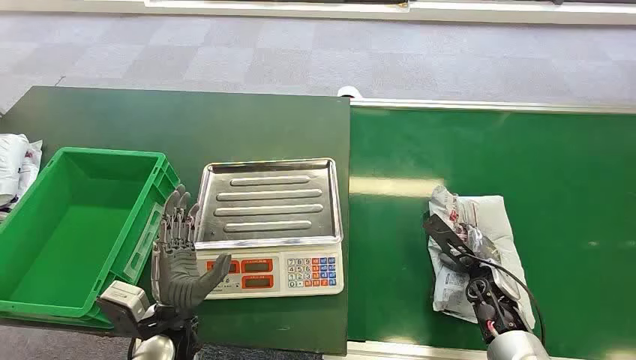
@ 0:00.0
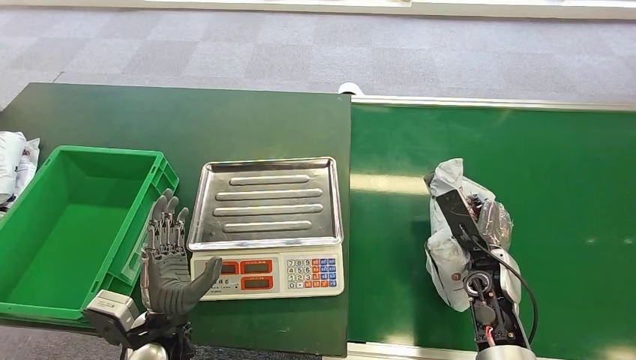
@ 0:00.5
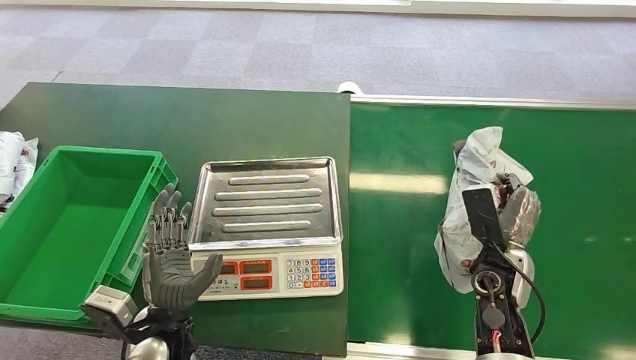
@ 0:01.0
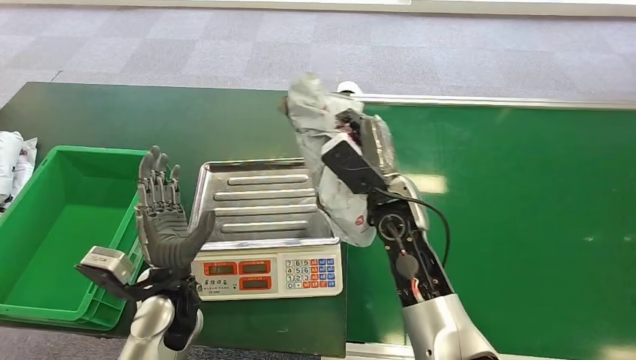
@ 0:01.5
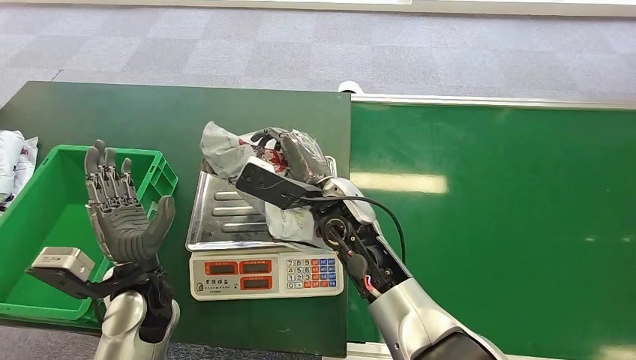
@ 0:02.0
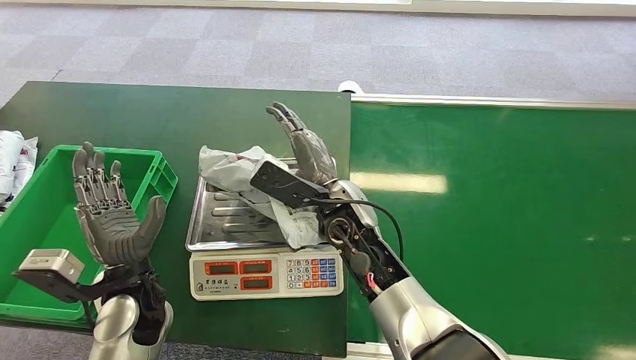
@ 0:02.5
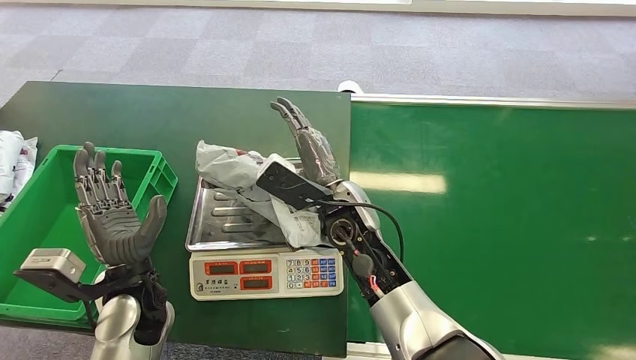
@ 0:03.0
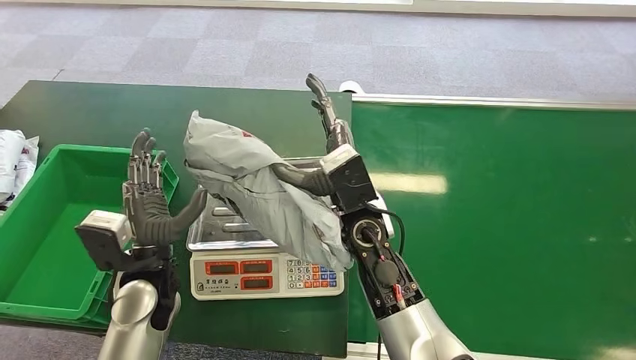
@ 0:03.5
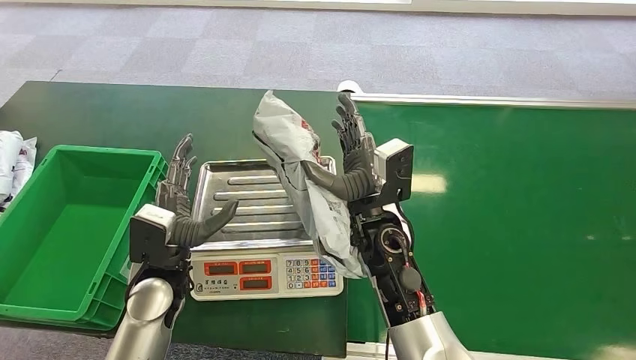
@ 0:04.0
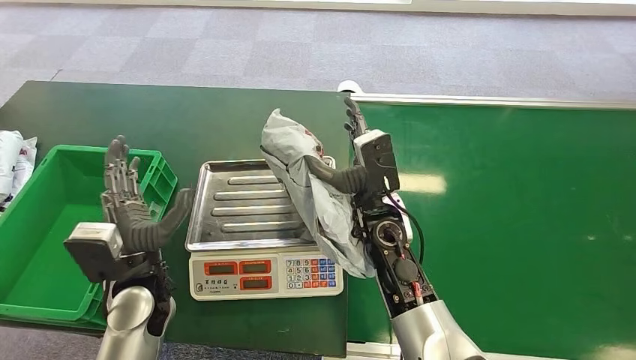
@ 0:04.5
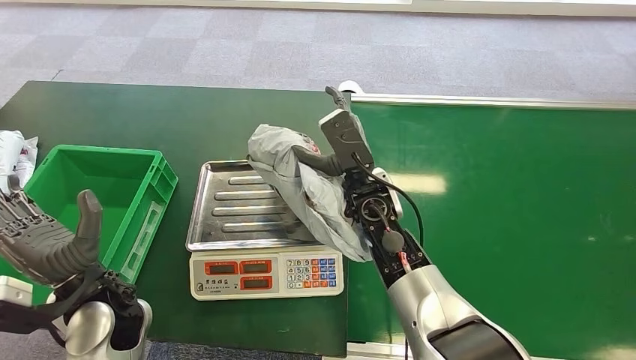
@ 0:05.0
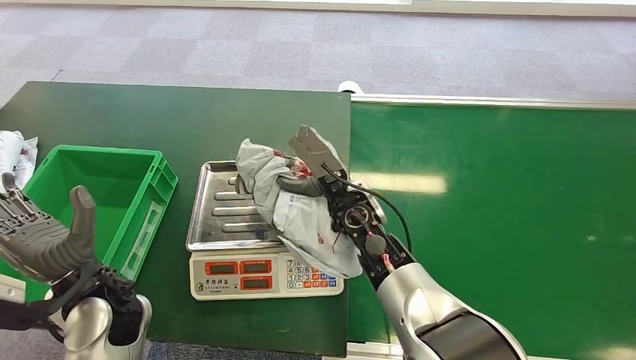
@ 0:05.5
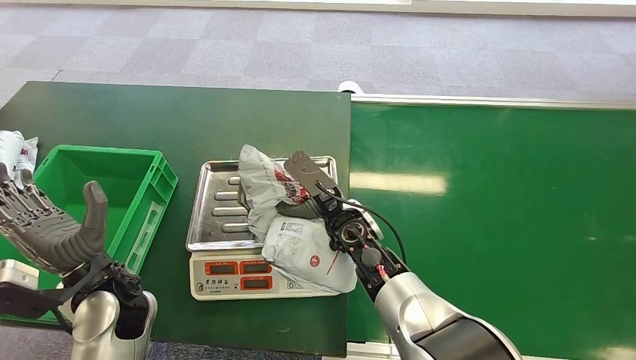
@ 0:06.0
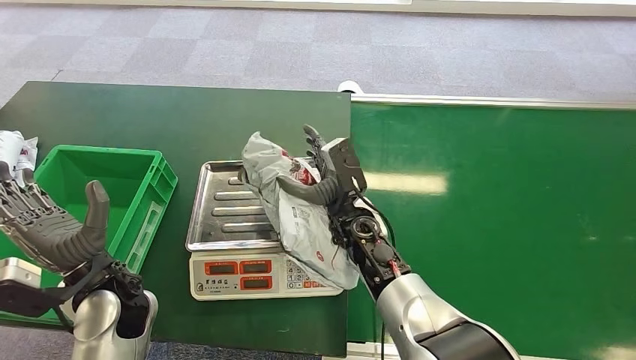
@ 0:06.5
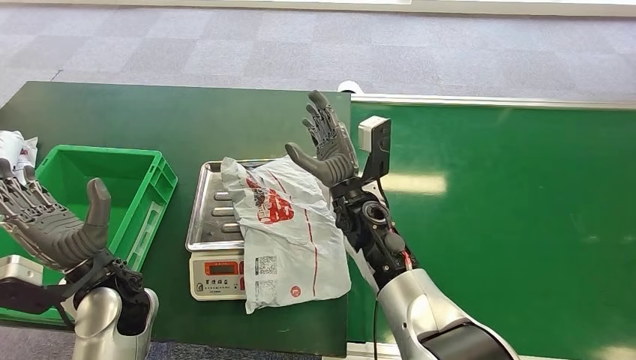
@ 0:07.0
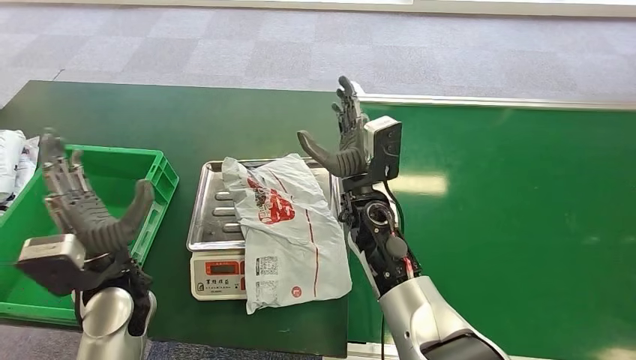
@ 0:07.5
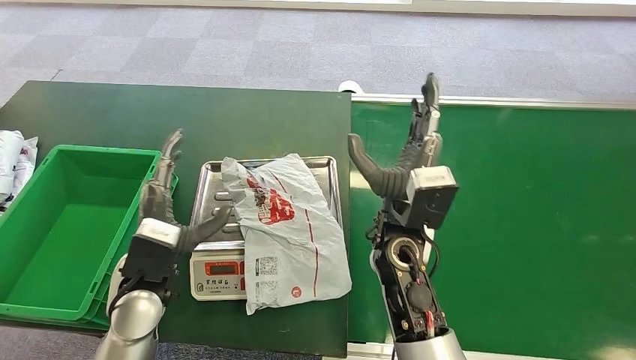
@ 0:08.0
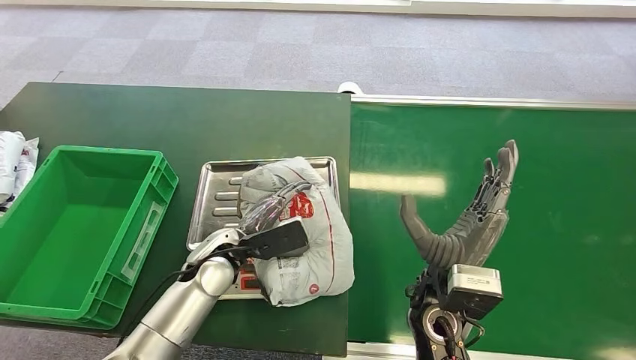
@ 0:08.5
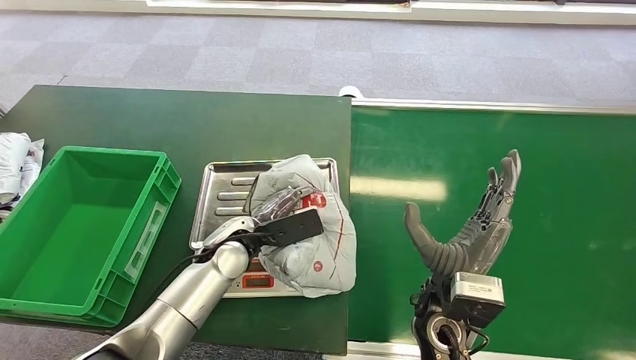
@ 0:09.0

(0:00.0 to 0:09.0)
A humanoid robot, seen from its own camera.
Step, 0:00.0 - 0:01.0: Pick up the package from the conveyor belt.
Step, 0:02.0 - 0:07.5: Place the package onto the inbound machine.
0:02.0 - 0:04.5: The right hand is displaced to the right by some 5 cm.

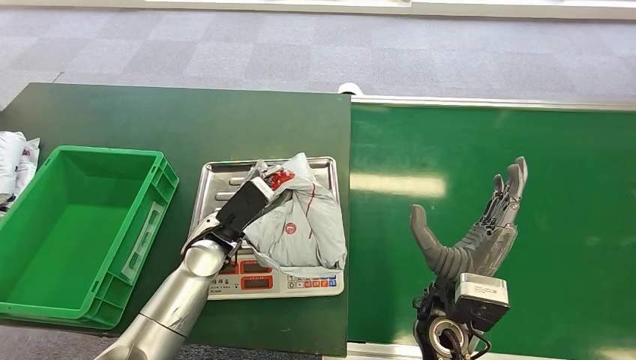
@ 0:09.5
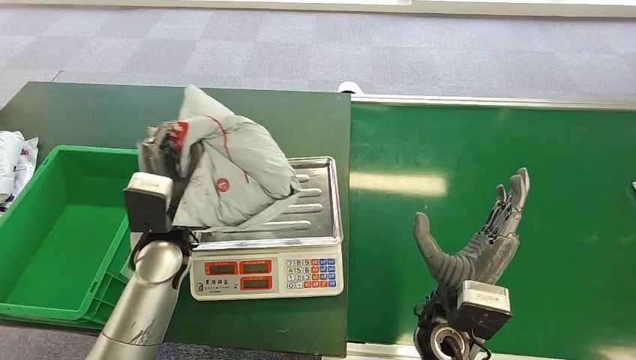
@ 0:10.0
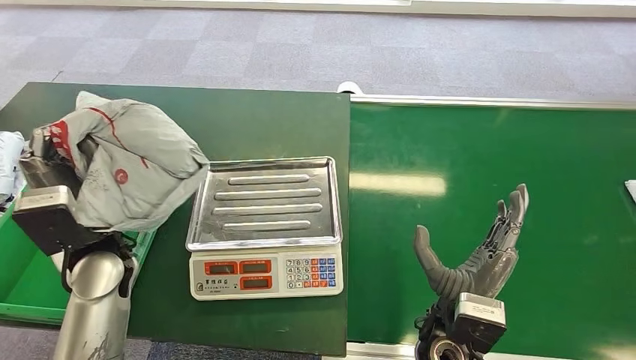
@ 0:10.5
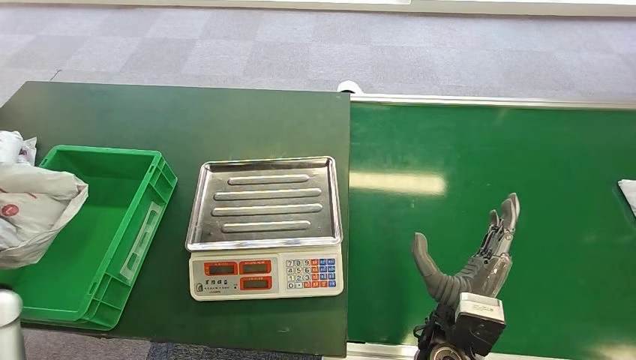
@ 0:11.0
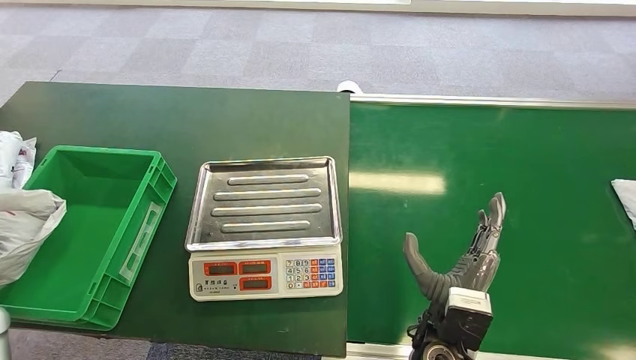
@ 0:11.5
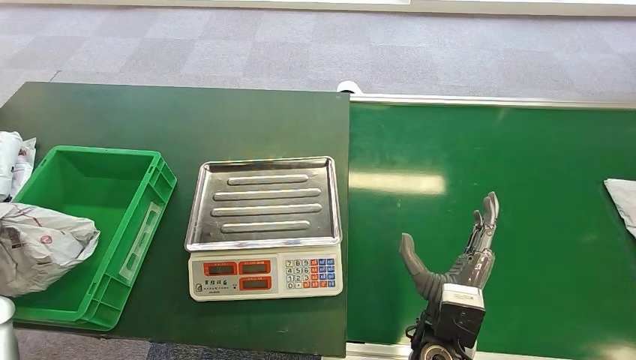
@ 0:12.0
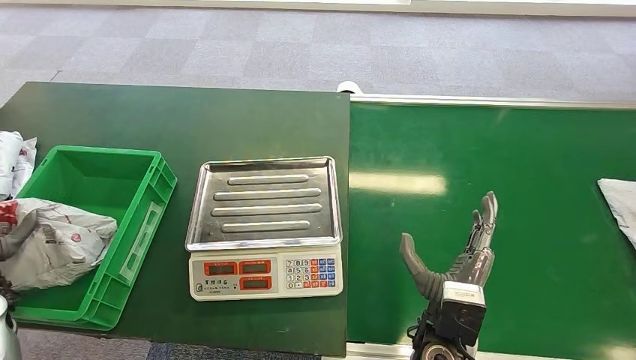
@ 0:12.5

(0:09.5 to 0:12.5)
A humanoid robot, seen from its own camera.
Step, 0:10.0 - 0:10.5: Pick up the package from the inbound machine.
Step, 0:11.0 - 0:12.5: Place the package into the parcel locker.
0:11.0 - 0:12.5: The left hand moves roughly 5 cm.
